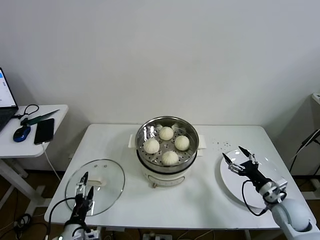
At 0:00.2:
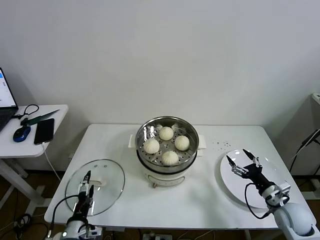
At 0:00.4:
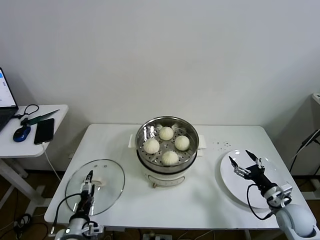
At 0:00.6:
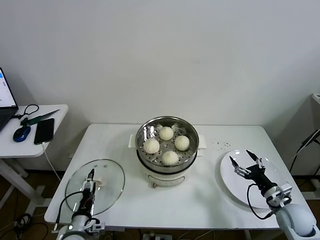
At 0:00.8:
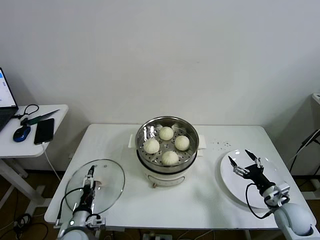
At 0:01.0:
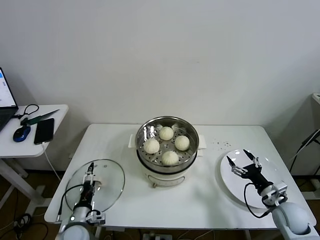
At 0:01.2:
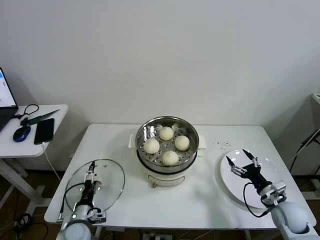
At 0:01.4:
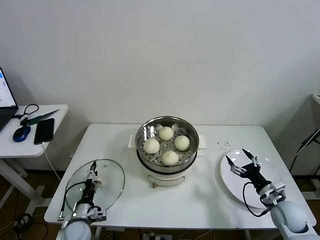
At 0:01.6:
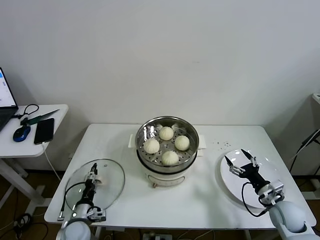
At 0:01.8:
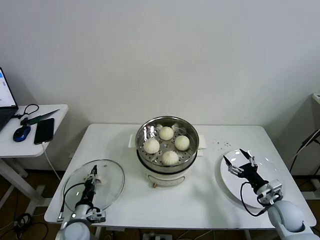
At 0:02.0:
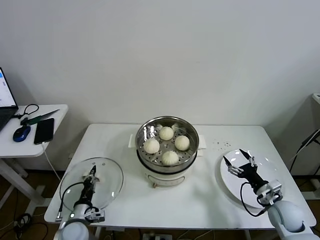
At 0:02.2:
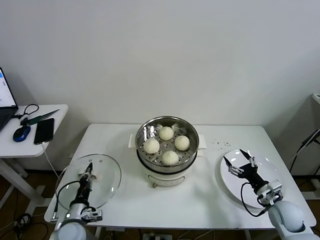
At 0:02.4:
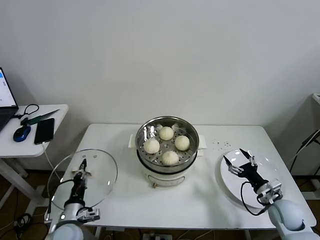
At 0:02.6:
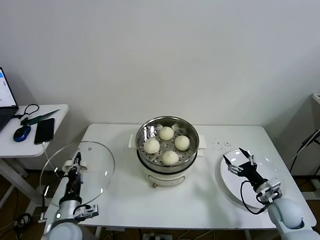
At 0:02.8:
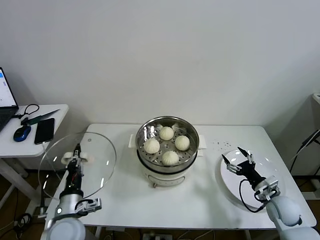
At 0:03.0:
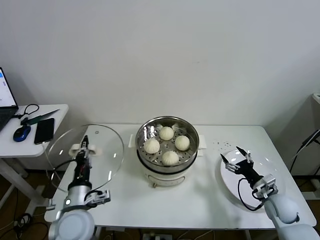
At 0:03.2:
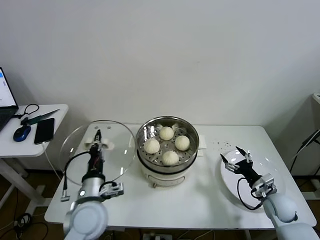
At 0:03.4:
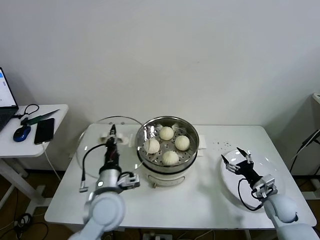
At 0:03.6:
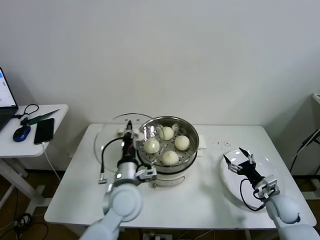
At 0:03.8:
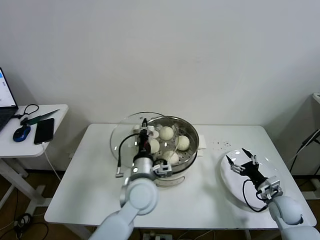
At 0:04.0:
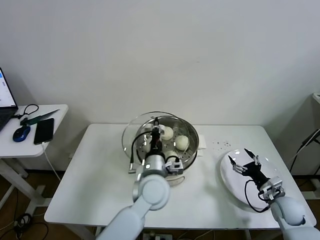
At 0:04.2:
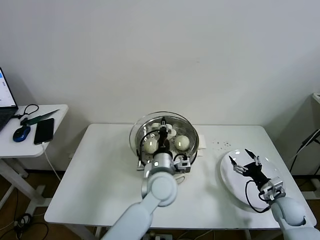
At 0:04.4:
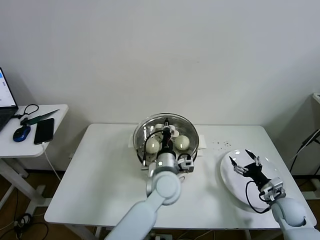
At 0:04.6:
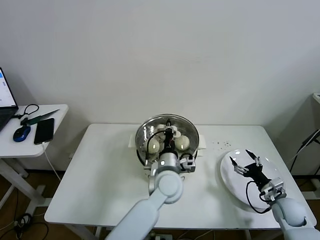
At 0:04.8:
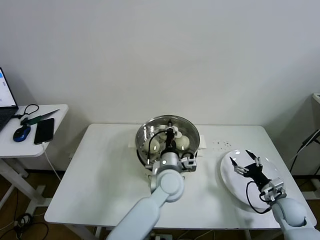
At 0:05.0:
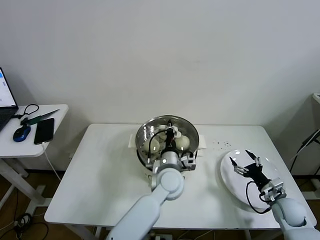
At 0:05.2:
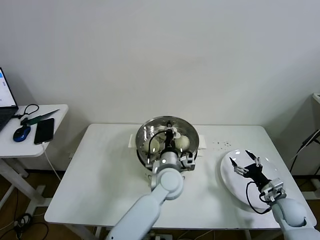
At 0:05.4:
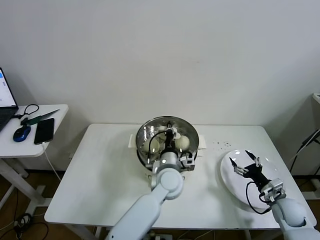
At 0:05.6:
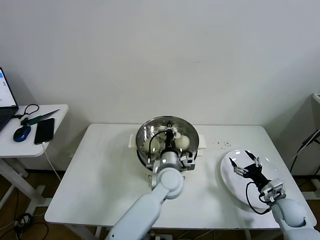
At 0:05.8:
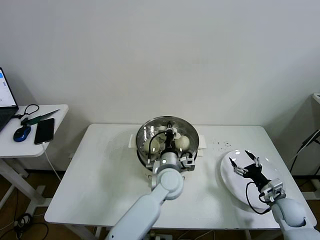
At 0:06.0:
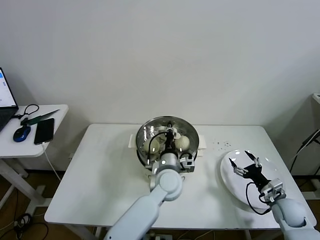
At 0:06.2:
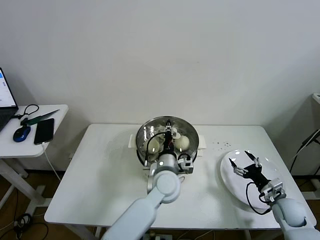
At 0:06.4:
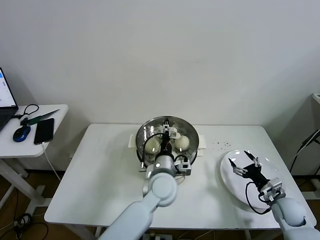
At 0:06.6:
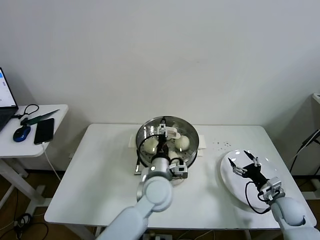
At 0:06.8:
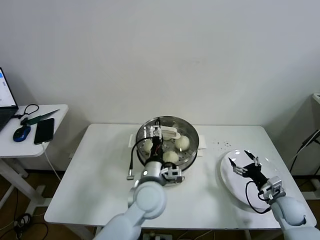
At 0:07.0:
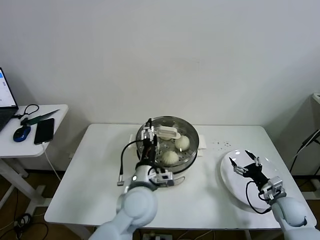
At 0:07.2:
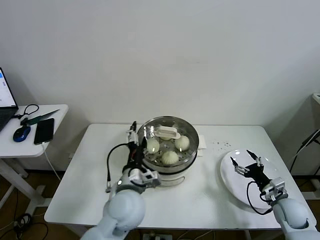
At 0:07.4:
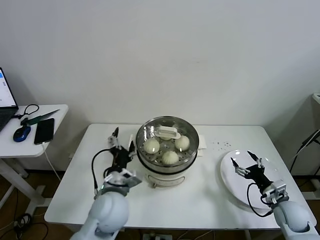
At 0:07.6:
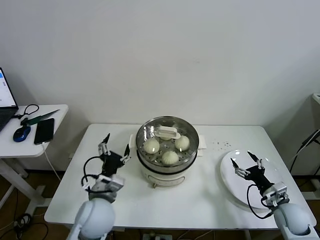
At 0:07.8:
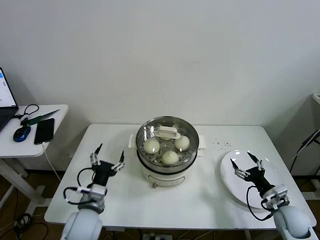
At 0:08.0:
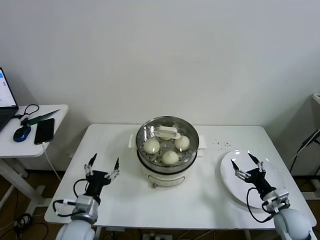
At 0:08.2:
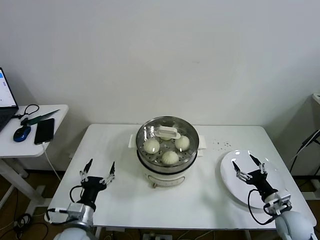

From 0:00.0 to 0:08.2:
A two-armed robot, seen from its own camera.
Task of the whole recording: take steamed baozi put them in steamer then cover it.
Step, from 0:02.0 to 0:06.2: Place the pot lid on the steamer with left gripper.
From 0:00.0 to 0:01.6: The left gripper heads forward and downward, covering roughly 15 cm, and closes.
From 0:01.6 to 0:03.2: The left gripper heads upward and to the right, covering roughly 20 cm, and closes its fingers.
From 0:03.2 to 0:05.0: The left gripper is displaced to the right and forward by approximately 25 cm.
From 0:05.0 to 0:06.6: The left gripper opens its fingers.
From 0:06.6 to 0:08.2: The left gripper moves to the left and backward, some 25 cm, while the right gripper changes place by some 5 cm.
